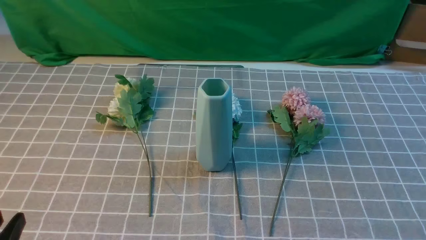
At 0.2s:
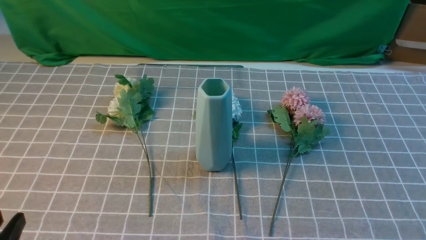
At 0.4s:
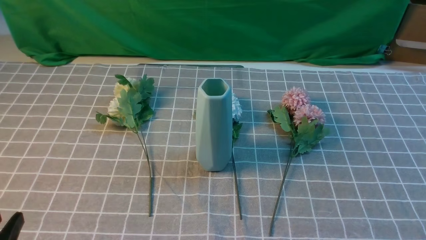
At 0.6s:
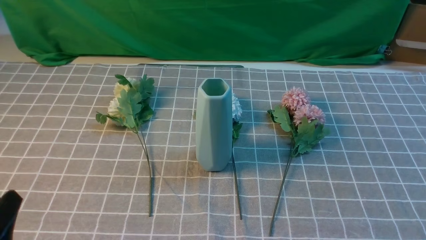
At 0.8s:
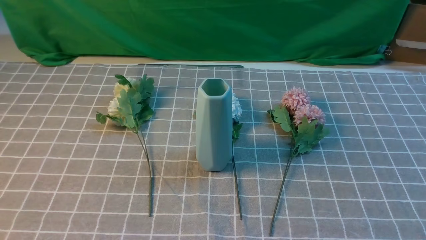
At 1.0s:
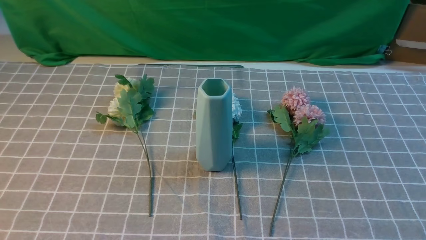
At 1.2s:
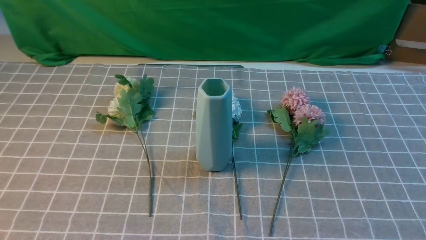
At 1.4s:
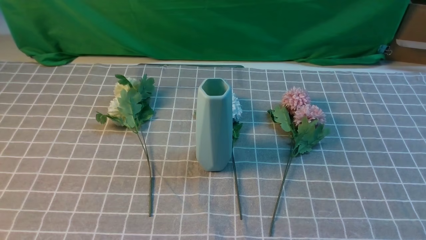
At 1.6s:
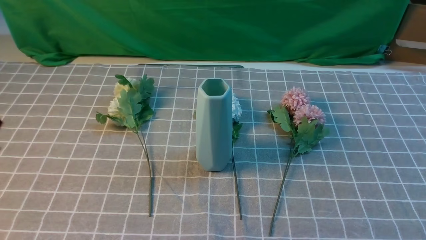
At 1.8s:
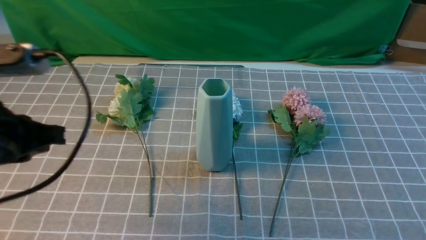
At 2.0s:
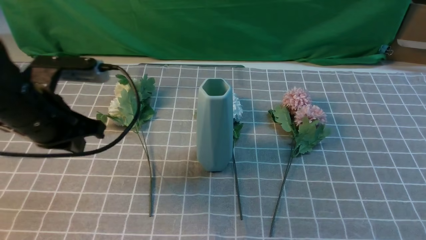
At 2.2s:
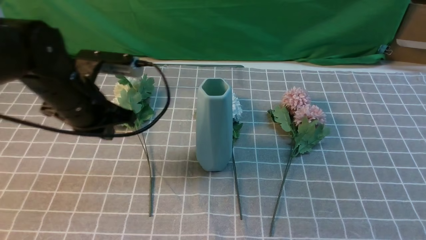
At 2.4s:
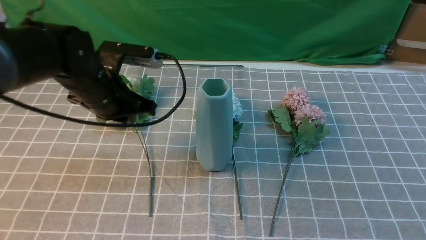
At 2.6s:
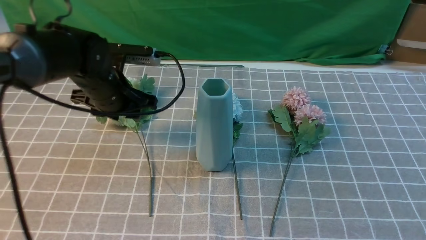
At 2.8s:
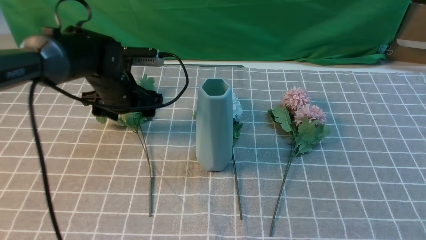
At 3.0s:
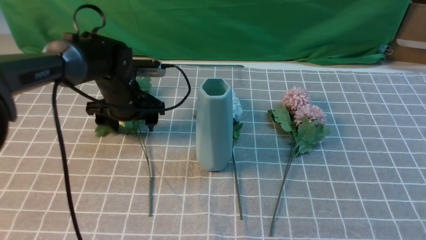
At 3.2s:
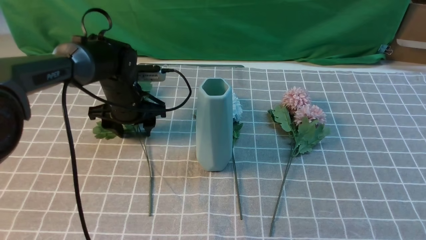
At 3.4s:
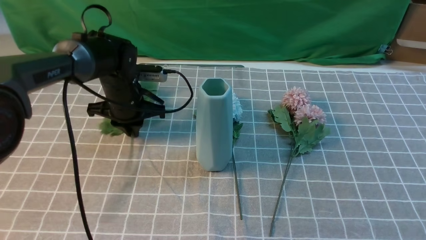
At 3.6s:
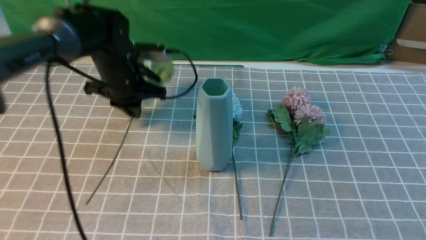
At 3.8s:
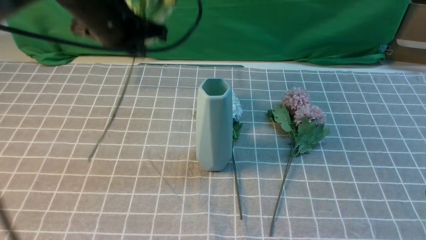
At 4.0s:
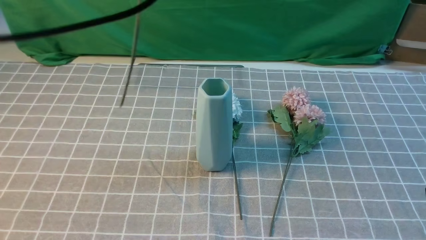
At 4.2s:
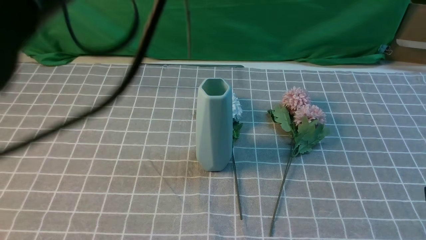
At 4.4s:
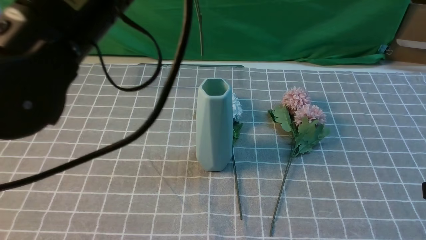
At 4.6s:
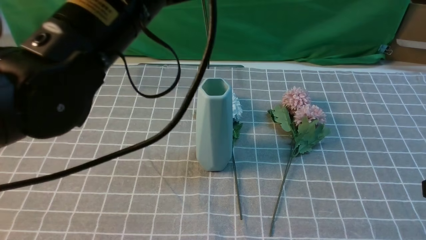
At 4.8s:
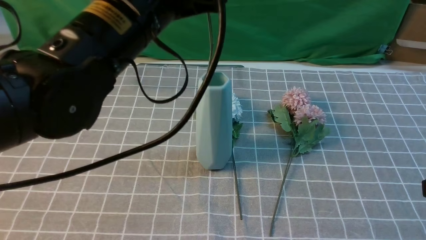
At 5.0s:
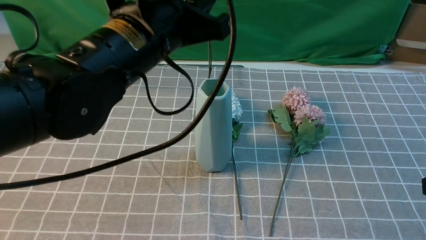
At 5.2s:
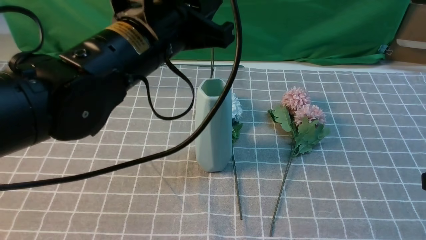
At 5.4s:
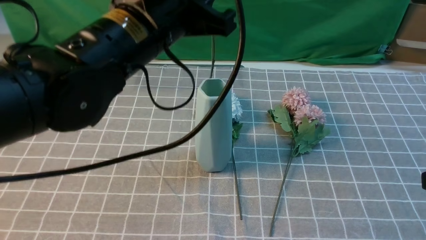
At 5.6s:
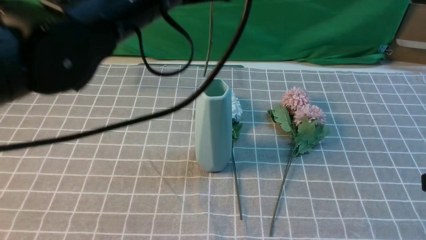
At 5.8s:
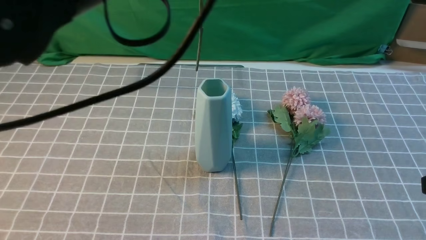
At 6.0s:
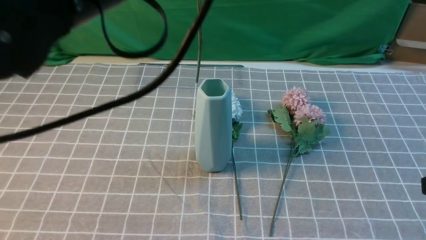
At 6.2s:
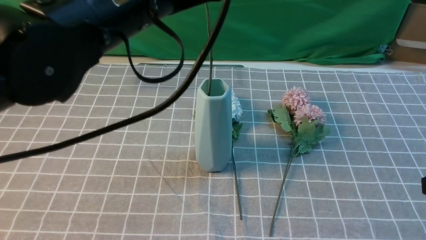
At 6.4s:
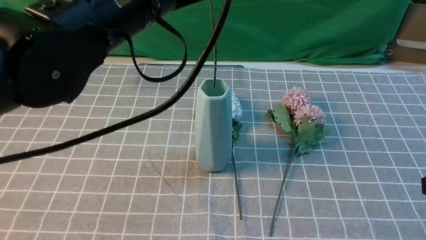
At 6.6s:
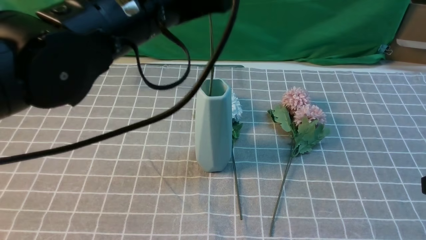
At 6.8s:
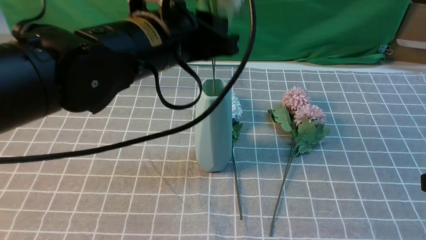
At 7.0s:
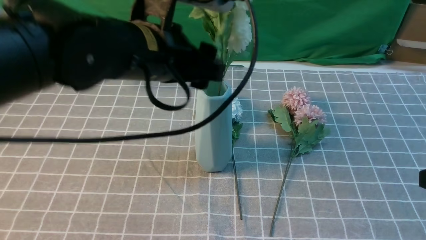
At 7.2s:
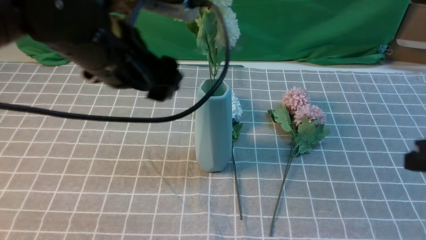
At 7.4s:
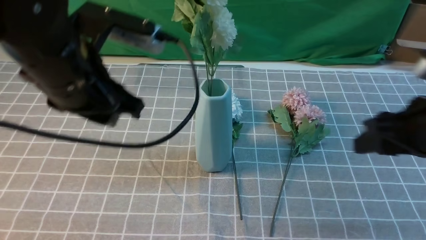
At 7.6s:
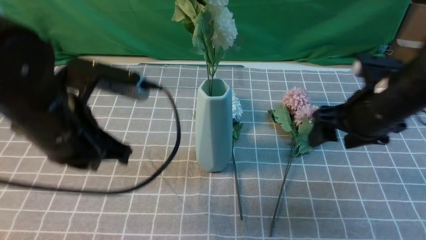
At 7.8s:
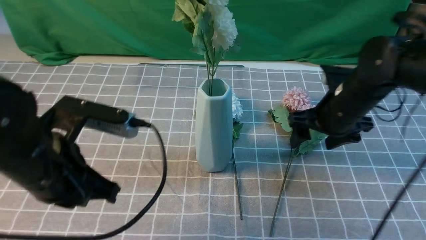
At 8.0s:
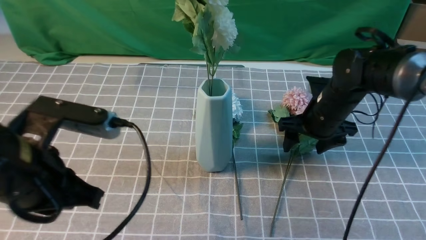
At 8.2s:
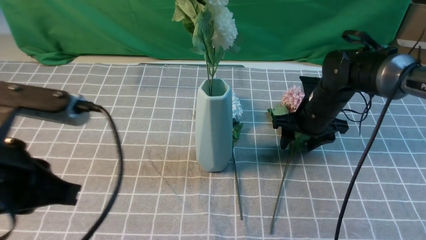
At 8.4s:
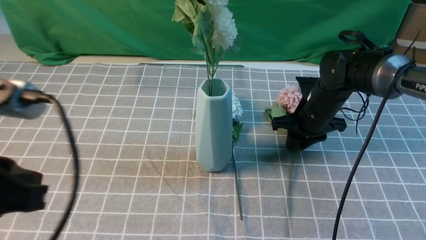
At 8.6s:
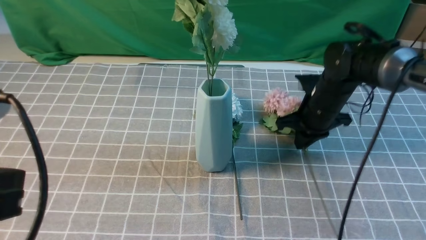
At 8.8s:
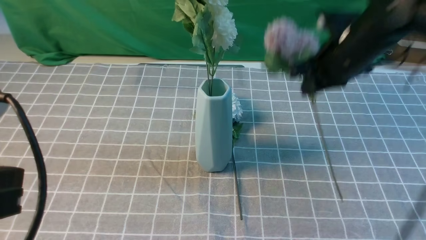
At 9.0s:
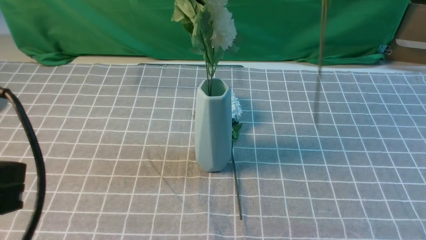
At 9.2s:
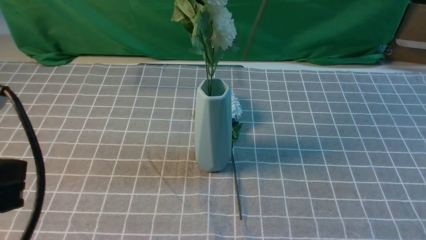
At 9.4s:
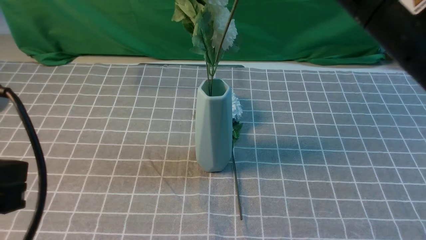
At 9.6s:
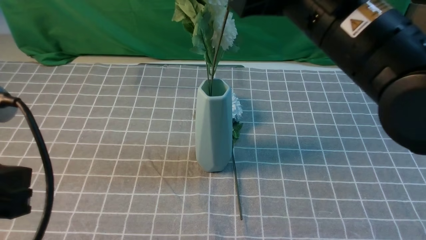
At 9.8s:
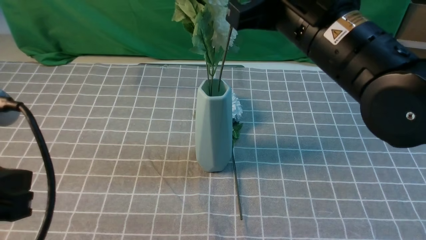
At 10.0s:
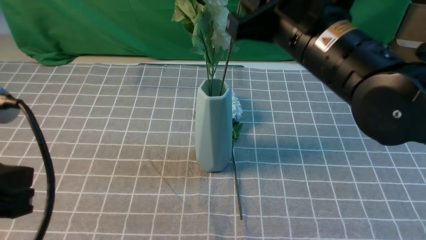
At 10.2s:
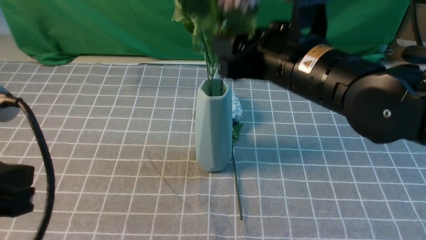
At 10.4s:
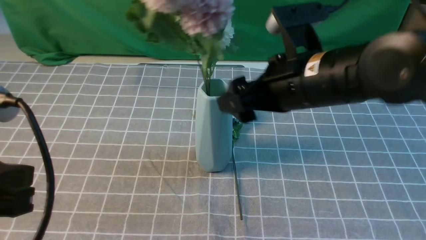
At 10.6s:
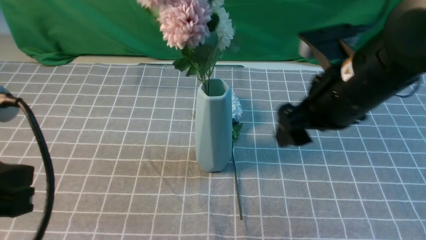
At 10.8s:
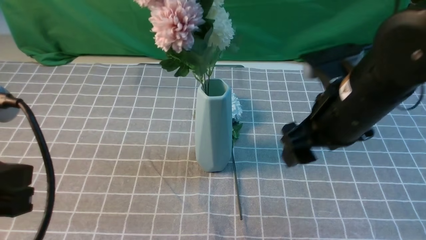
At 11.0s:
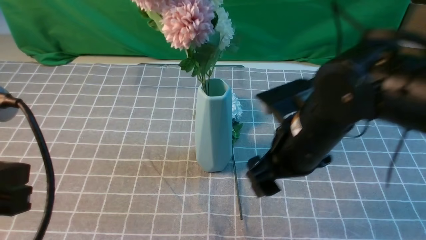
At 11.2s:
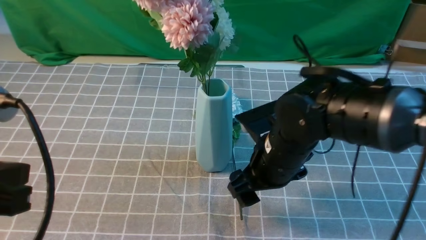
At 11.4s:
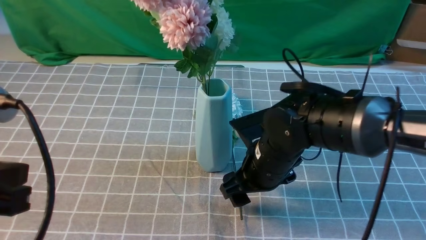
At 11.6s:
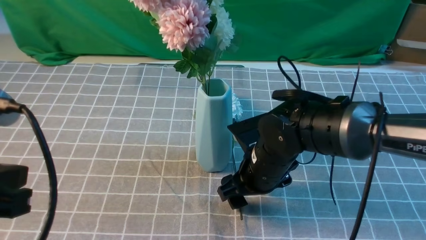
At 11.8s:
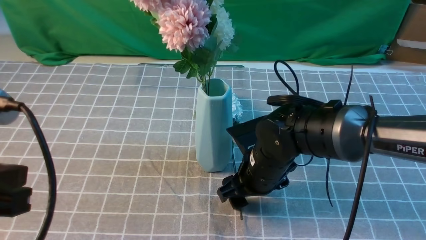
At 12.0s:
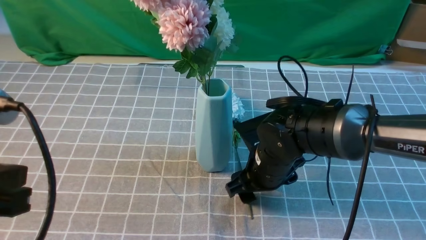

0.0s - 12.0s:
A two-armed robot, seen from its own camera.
Task of the whole recording: insert the flowers into the vase on the table with the grey tablecloth.
Step, 0.0s - 3.4s: use the left arm to grab a bunch of fresh flowers.
Step, 3.6s - 7.4s: use the left arm to insert the flowers into the vase.
Step, 7.6s - 8.4s: use the right arm to grab a bunch of fresh flowers.
Step, 8.6s - 10.4s: use the right arm to insert the flowers into the vase.
1.6s - 3.0s: The right gripper moves forward and upward, approximately 15 cm. The left gripper goes approximately 35 cm forward and downward, and opens up.
3.0s - 4.4s: The left gripper shifts roughly 30 cm upward and backward, and closes.
6.0s - 7.6s: The left gripper is displaced downward and to the left by some 15 cm, and opens, then closes once more. Meanwhile the right gripper moves forward and to the left, about 20 cm, and opens up.
7.6s - 9.0s: The right gripper is displaced upward by roughly 15 cm, and closes its fingers. The left gripper shifts approximately 15 cm backward, to the left and upward.
9.0s - 10.4s: The right gripper moves downward, approximately 10 cm, and opens up.
10.4s - 12.0s: The right gripper heads downward, covering approximately 15 cm.

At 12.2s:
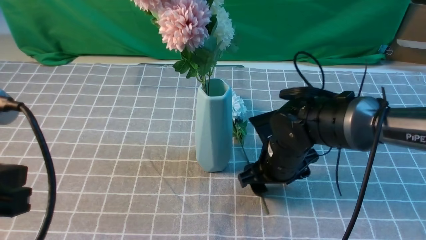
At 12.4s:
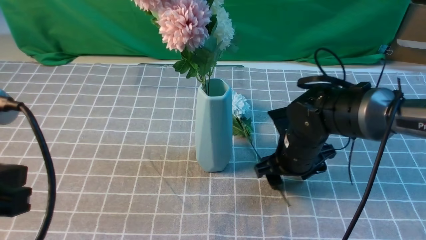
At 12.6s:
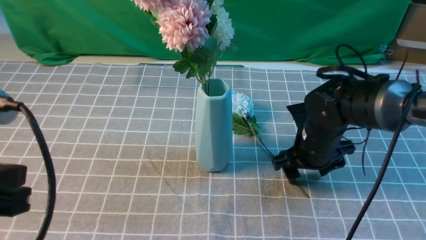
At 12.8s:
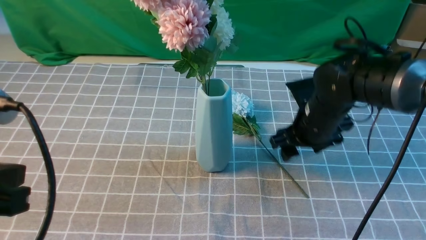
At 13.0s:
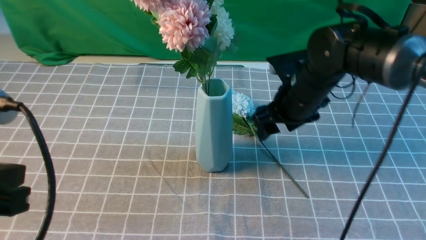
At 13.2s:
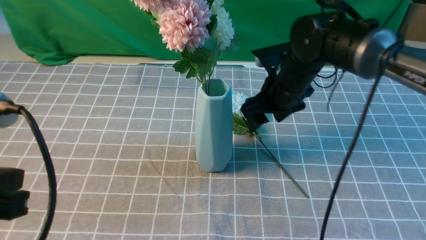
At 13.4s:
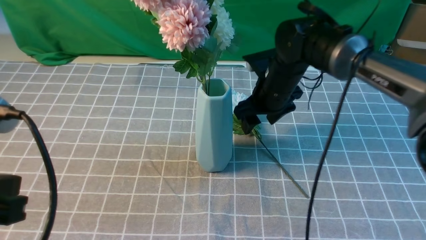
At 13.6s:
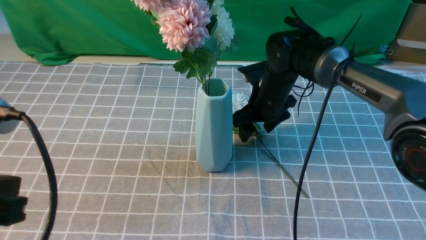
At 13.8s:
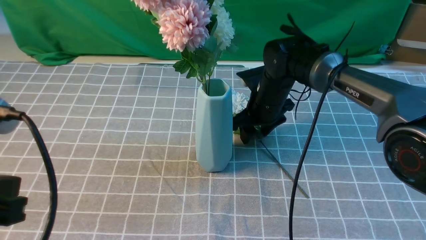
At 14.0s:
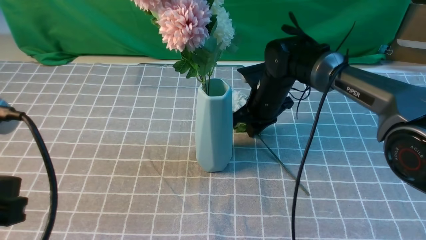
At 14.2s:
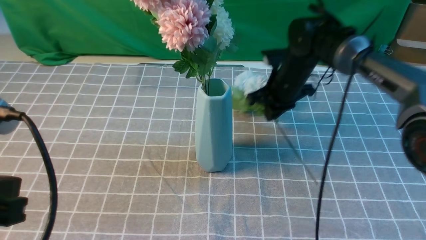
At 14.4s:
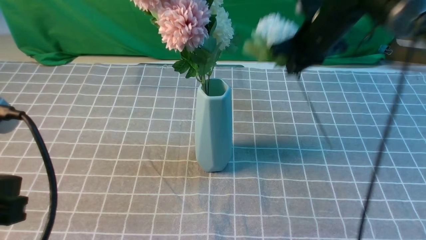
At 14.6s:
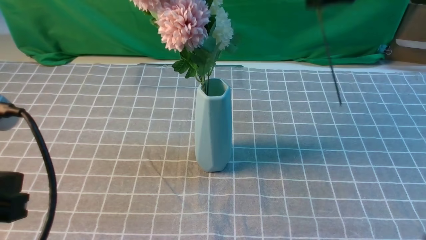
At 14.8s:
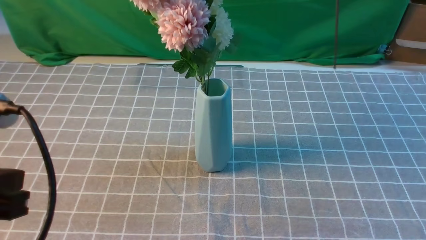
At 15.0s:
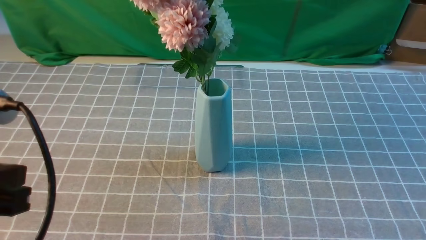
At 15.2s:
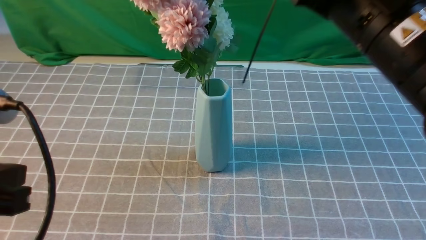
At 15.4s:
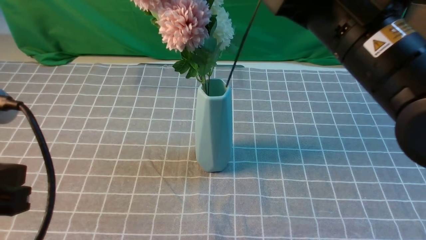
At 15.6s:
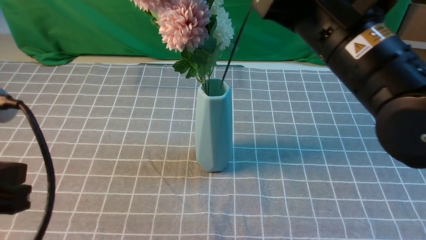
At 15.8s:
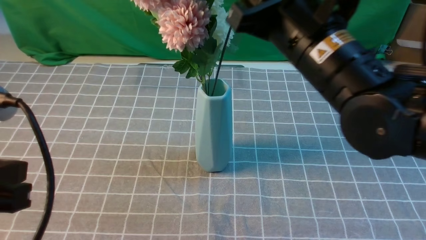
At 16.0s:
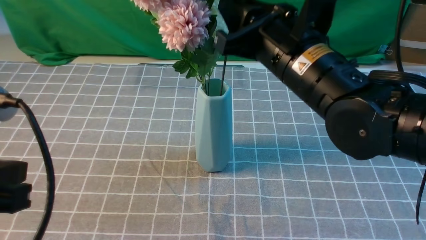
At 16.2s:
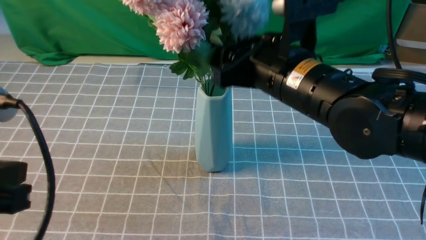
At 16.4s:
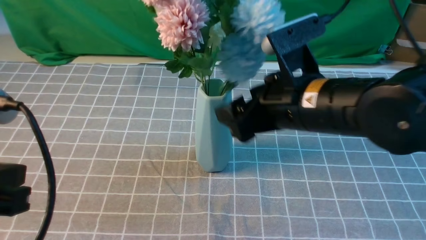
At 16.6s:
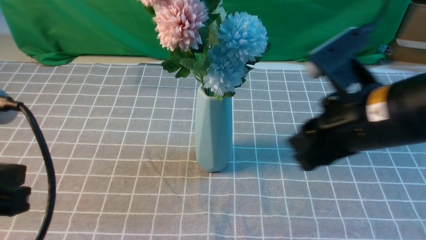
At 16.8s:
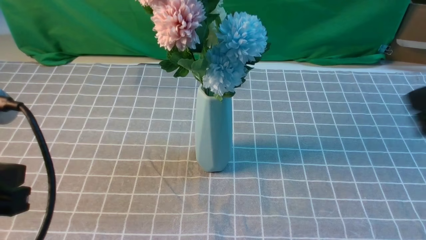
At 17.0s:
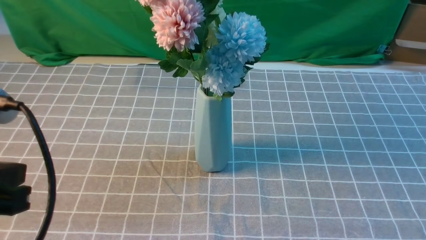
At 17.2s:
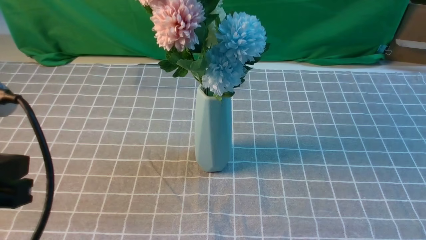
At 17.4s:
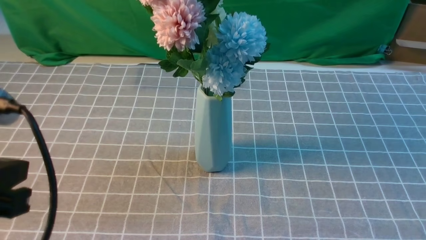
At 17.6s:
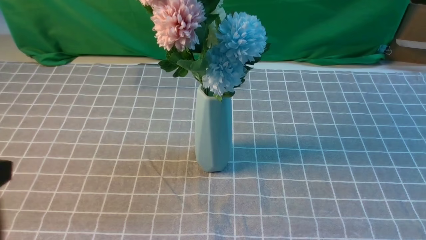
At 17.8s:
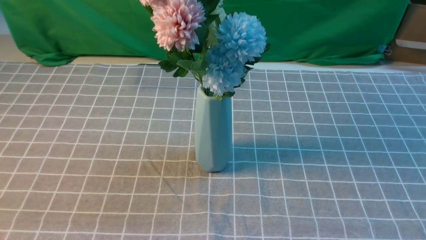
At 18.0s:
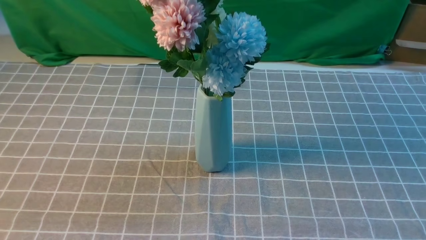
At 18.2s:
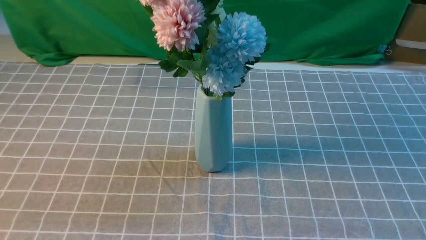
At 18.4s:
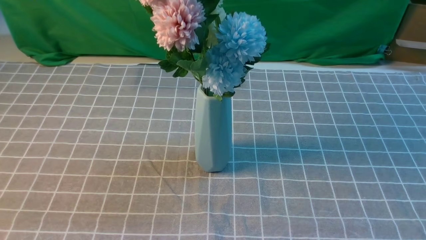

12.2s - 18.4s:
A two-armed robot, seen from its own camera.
Task of the whole recording: insert the flowers into the vase on the table with the grey tablecloth.
Step, 12.2s - 14.0s: use the right arm to grab a bunch of fresh flowers.
Step, 14.2s - 16.4s: use the right arm to insert the flowers into the vase.
12.2s - 13.8s: The right gripper is displaced forward by about 15 cm.
13.8s - 15.4s: The right gripper heads upward and backward, covering some 30 cm, and closes up.
15.4s - 16.8s: The right gripper heads to the right and backward, covering approximately 15 cm, and opens, then closes once more.
16.8s - 18.4s: The left gripper goes roughly 10 cm backward; the right gripper goes roughly 20 cm backward and to the right.
